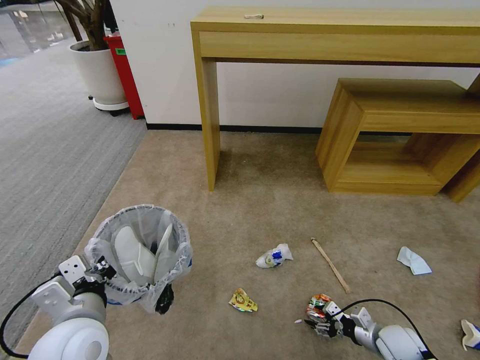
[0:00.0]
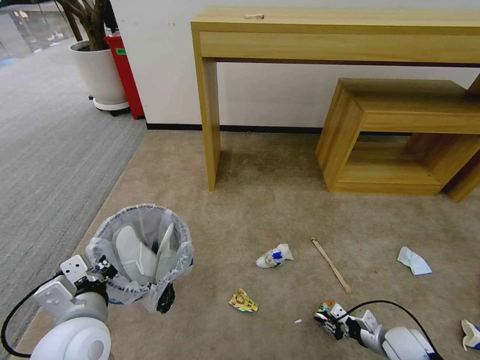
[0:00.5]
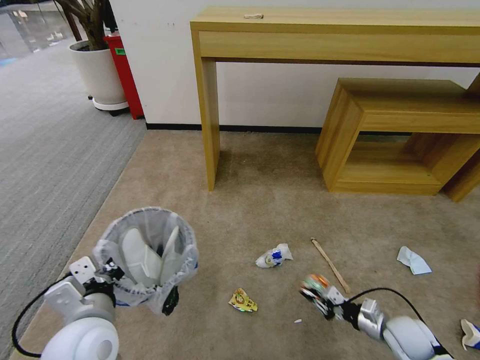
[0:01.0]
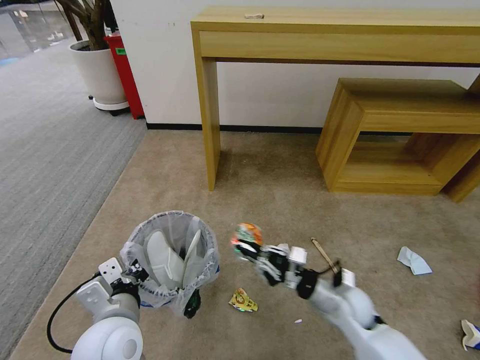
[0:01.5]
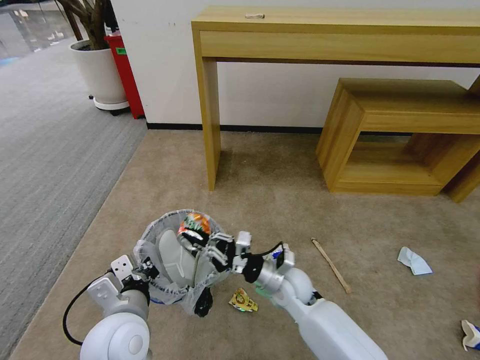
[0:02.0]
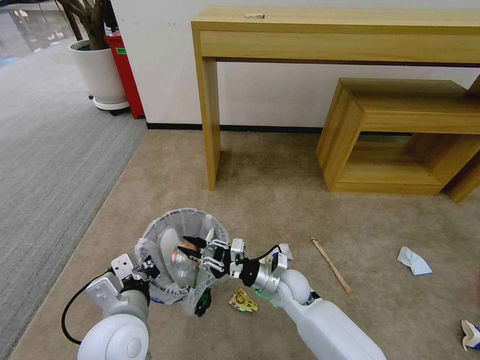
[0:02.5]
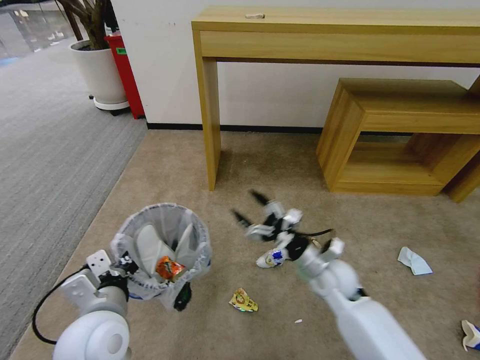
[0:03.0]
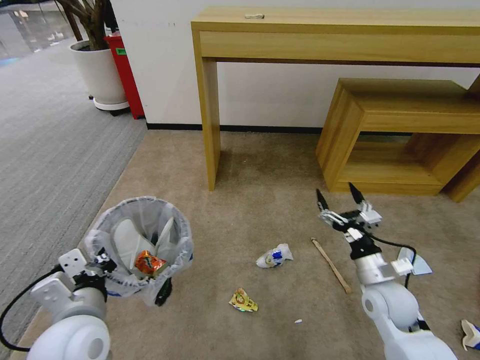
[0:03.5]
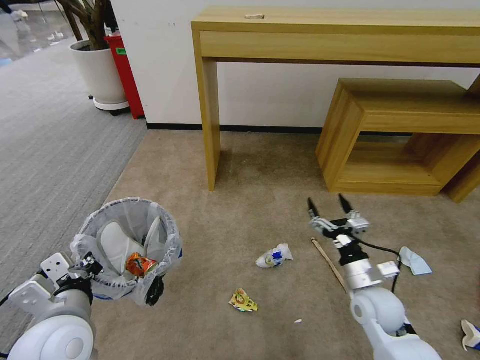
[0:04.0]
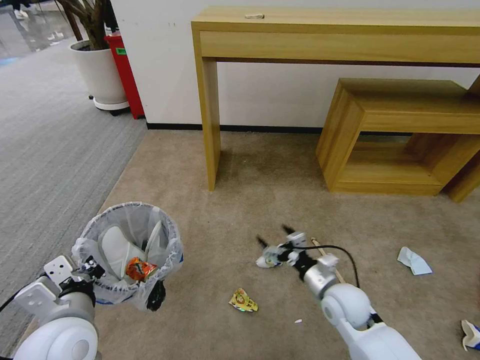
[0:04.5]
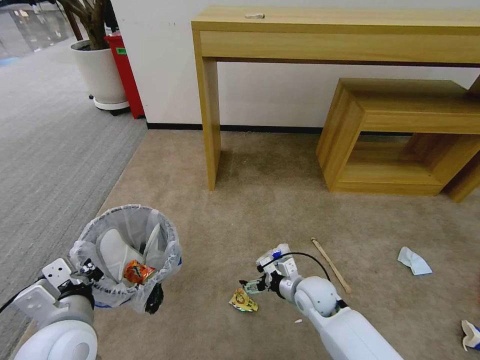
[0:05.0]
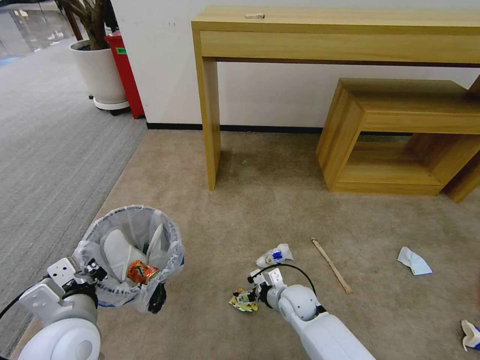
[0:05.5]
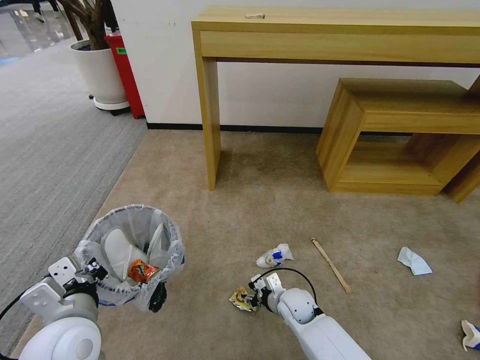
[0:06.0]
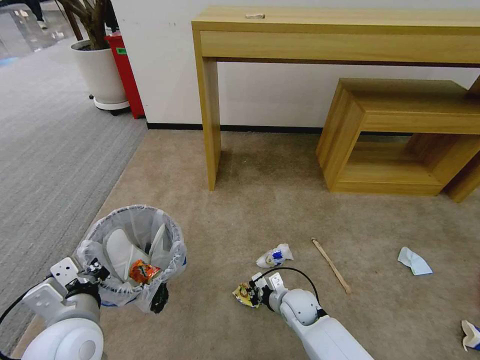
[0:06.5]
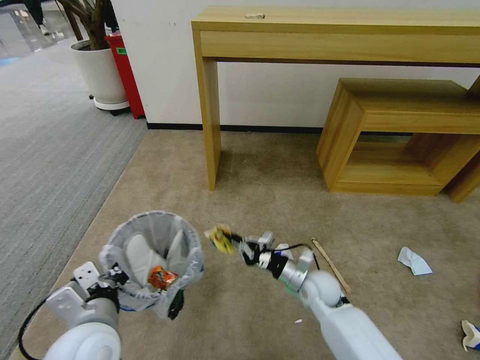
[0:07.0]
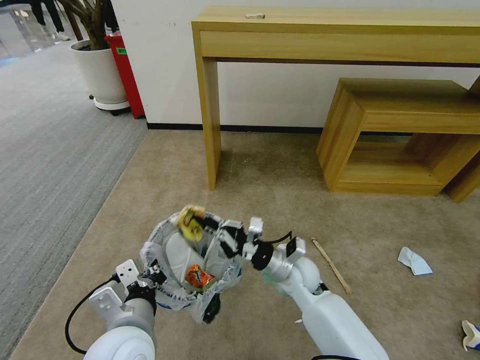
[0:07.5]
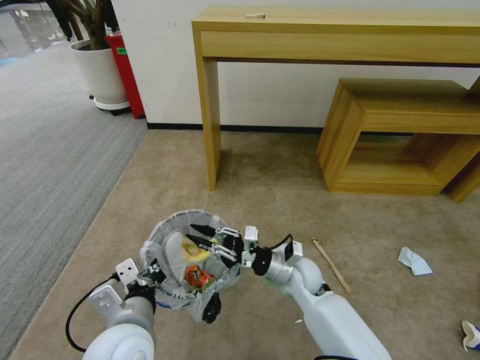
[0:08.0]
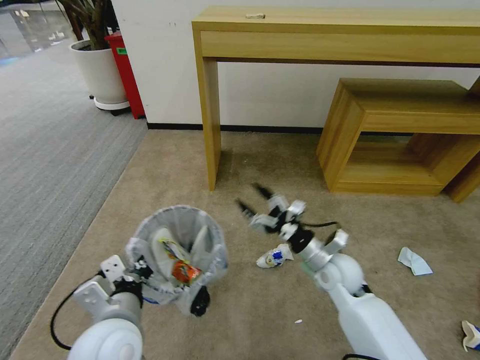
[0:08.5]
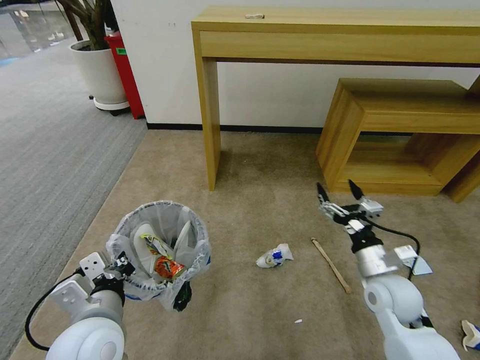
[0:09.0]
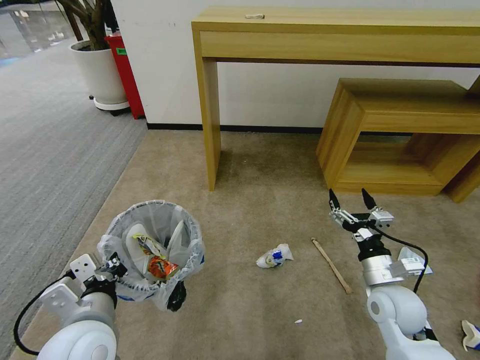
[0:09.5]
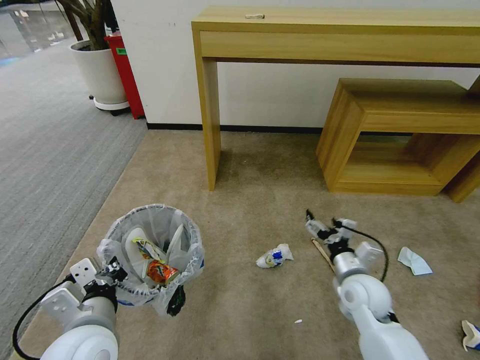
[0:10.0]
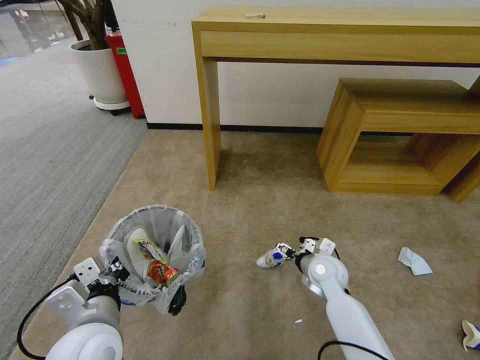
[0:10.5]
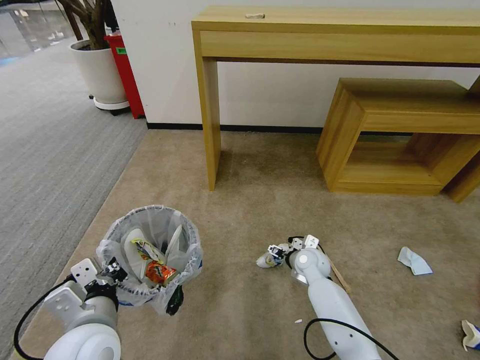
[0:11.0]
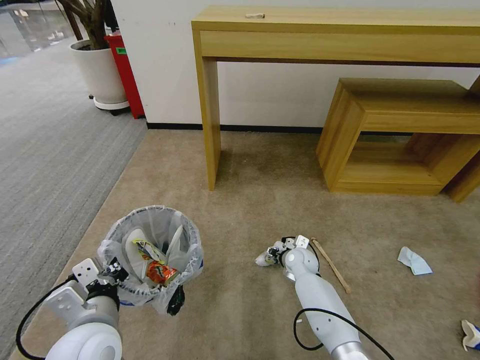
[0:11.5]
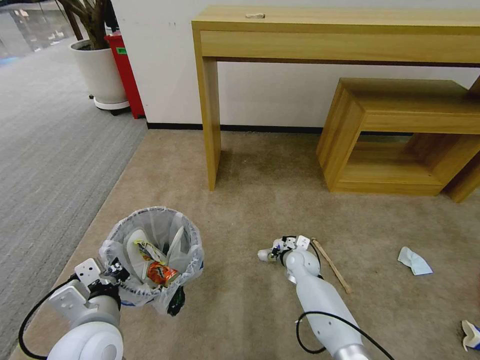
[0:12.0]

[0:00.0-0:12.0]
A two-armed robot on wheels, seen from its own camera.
Task of the whole recording: Pick up the trash bin and place the garbage on the floor into it.
0:00.0 to 0:02.0: The right gripper is displaced to the left by about 30 cm, and closes its fingers. Meanwhile the left gripper heads to the right, covering roughly 5 cm.
0:02.0 to 0:04.0: The left gripper goes about 10 cm to the left; the right gripper moves to the right, some 20 cm, and opens its fingers.
0:04.0 to 0:06.0: The right gripper is displaced to the left and downward by approximately 20 cm, and closes up.
0:06.0 to 0:08.0: The left gripper is displaced to the right by approximately 10 cm. The right gripper travels upward by about 10 cm.
0:08.0 to 0:10.0: The left gripper goes about 5 cm to the left, while the right gripper travels to the right and backward by about 15 cm, and opens up.
0:10.0 to 0:12.0: The right gripper heads forward, downward and to the left, covering some 20 cm, and closes its fingers.

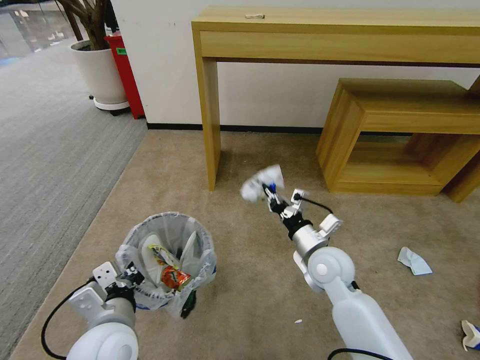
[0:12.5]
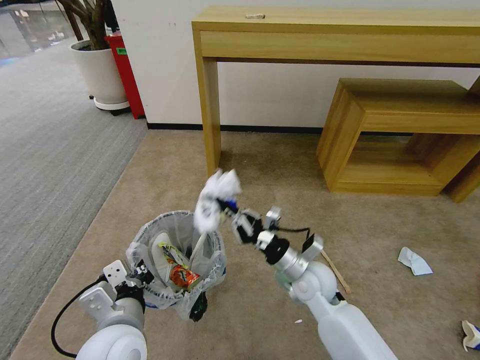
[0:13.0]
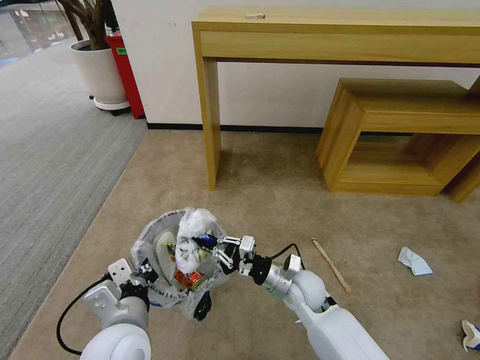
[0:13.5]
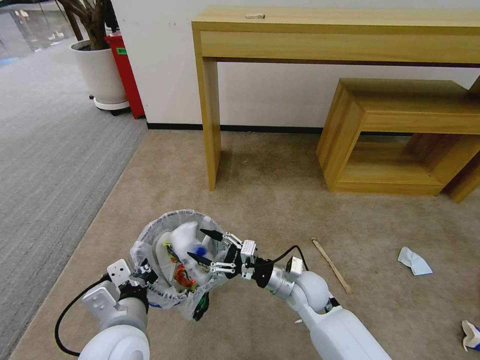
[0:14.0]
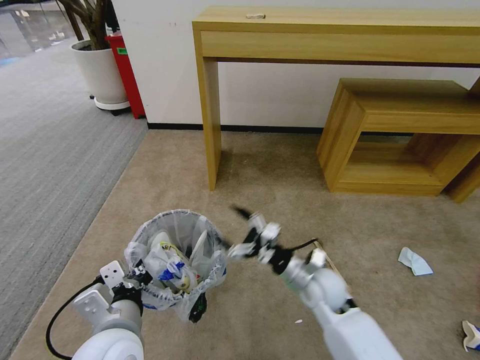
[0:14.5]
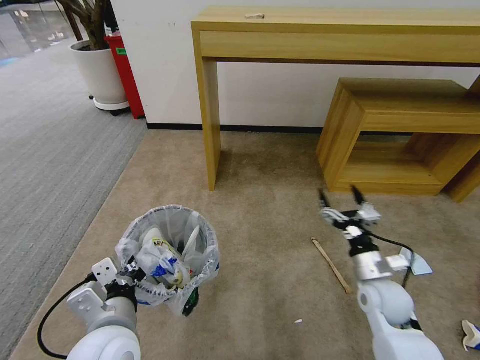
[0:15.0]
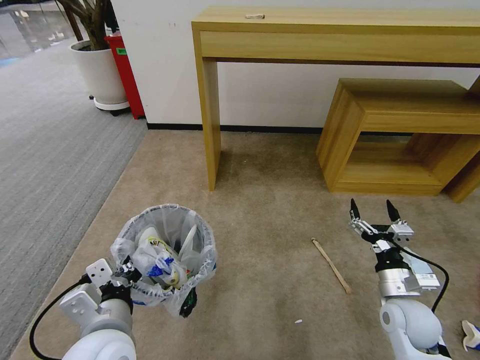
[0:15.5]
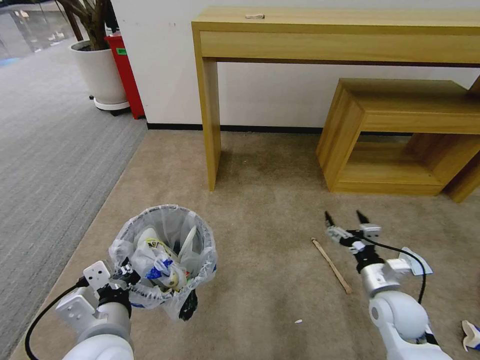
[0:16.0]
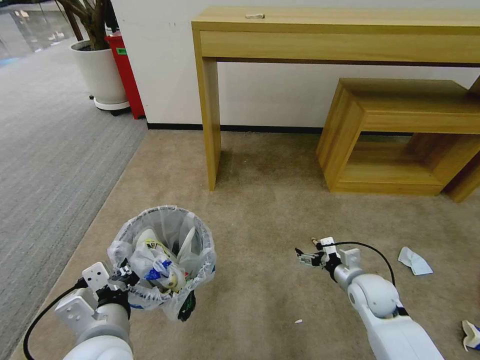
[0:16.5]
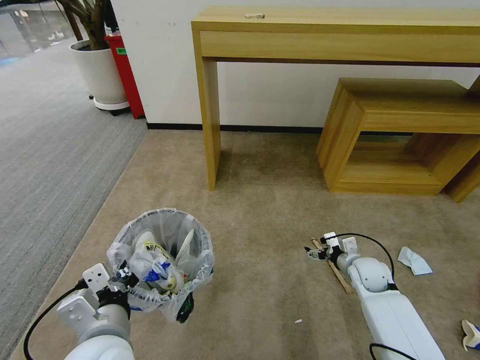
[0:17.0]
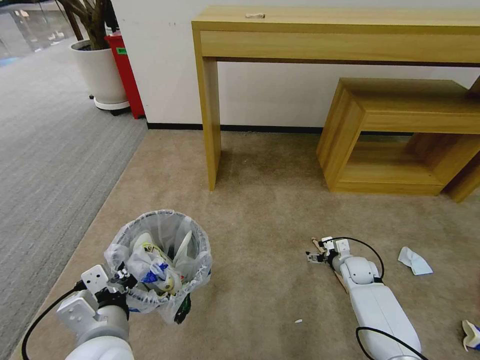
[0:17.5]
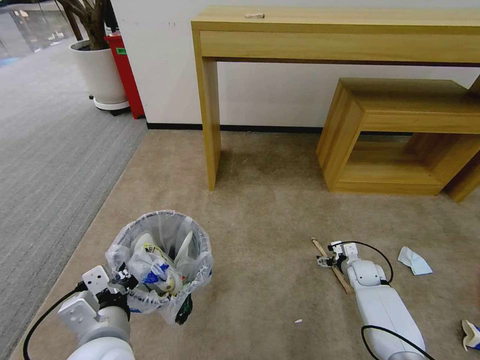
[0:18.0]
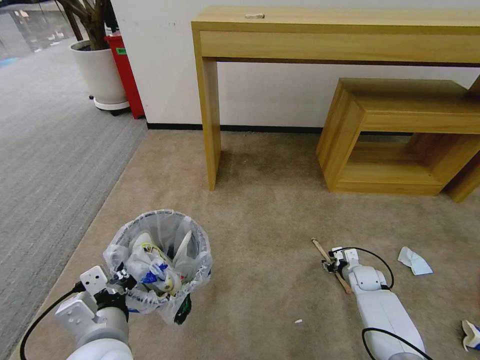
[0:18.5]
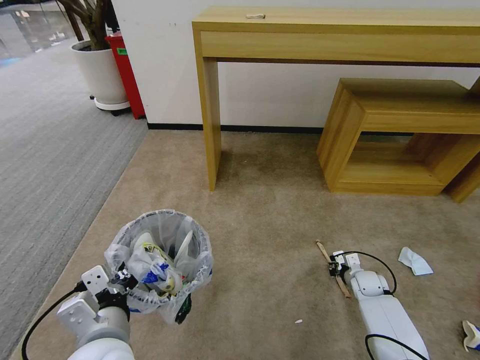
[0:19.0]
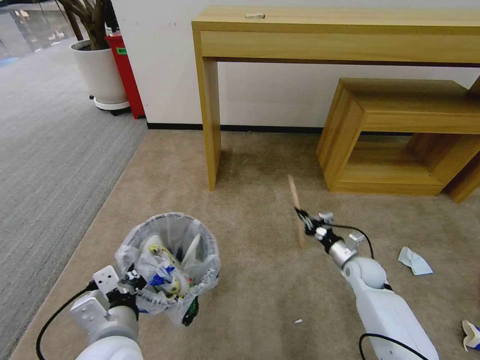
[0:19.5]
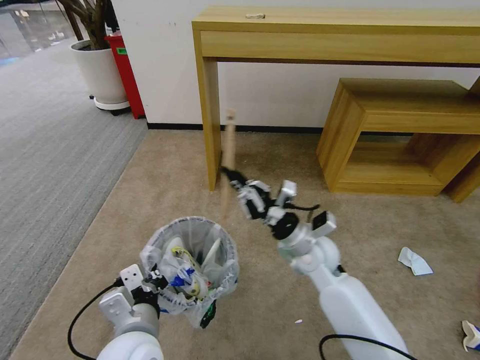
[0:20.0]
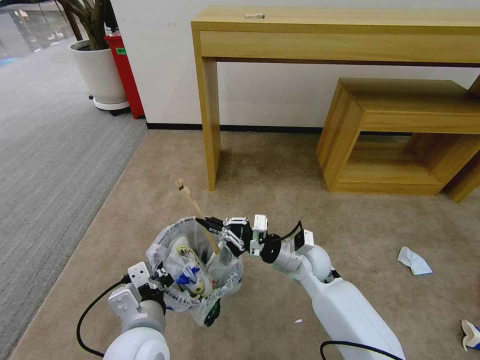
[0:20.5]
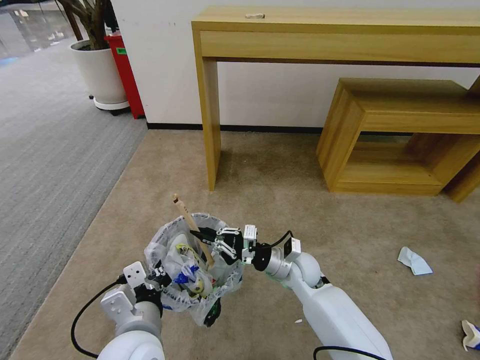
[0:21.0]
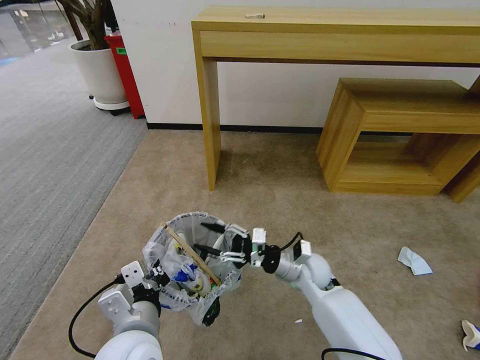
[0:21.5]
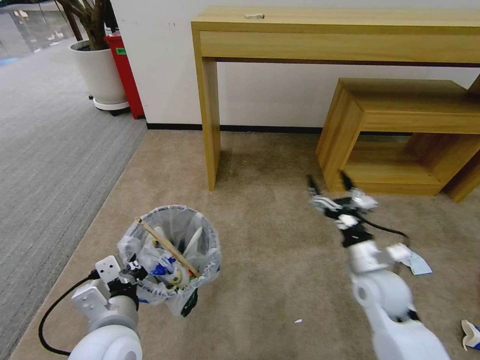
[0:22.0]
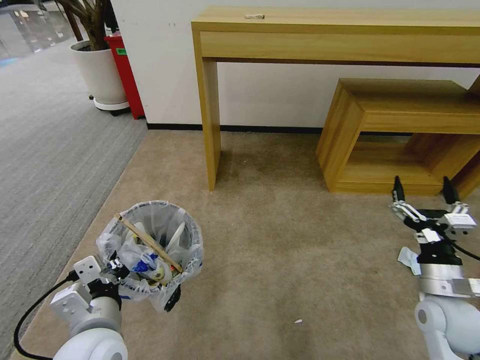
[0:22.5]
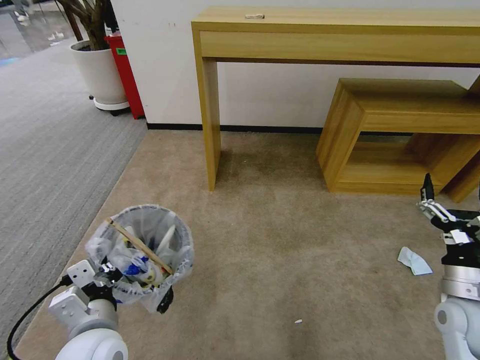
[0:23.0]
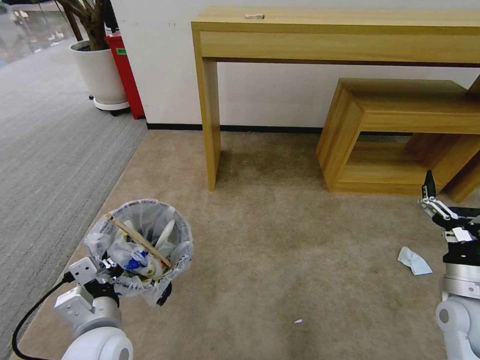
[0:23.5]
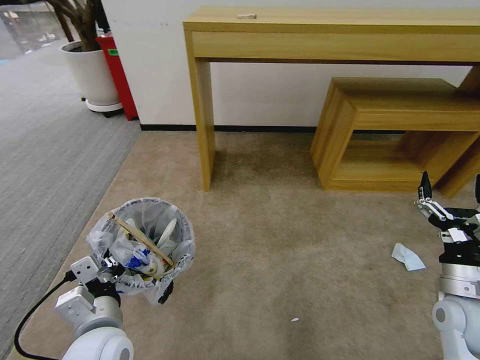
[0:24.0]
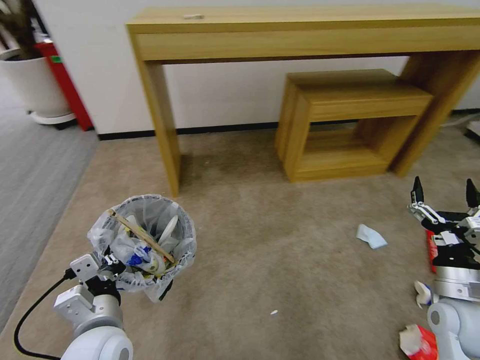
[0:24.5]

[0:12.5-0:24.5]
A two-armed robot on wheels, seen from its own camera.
Task of the whole recording: Pick up the trash bin and place the garbage on the floor into it.
0:12.5 to 0:14.5: The right gripper travels downward by some 5 cm, and opens.
0:14.5 to 0:16.5: The right gripper shifts some 15 cm to the right.
0:16.5 to 0:18.5: The right gripper moves downward, forward and to the right, roughly 20 cm, and closes up.
0:18.5 to 0:20.5: The left gripper changes place by some 5 cm. The right gripper is displaced to the left and upward by roughly 30 cm, and closes.
0:20.5 to 0:22.5: The right gripper heads to the right and backward, covering roughly 25 cm, and opens. The left gripper moves to the left, approximately 5 cm.

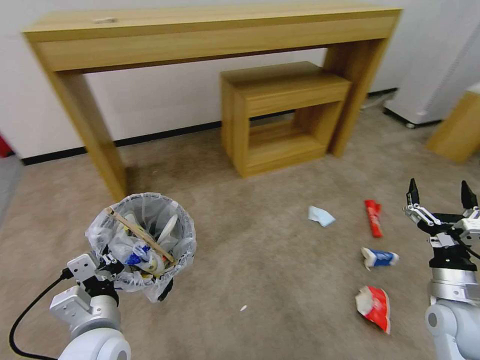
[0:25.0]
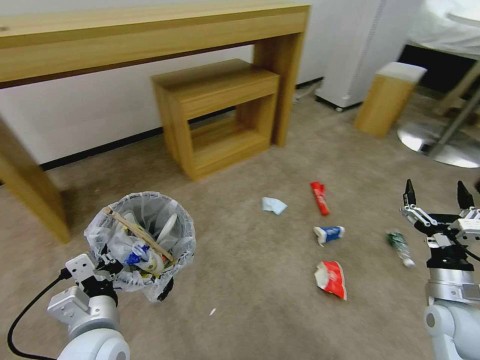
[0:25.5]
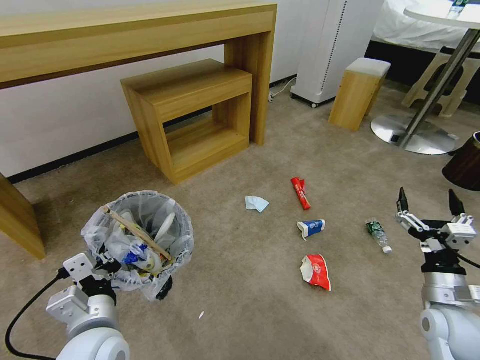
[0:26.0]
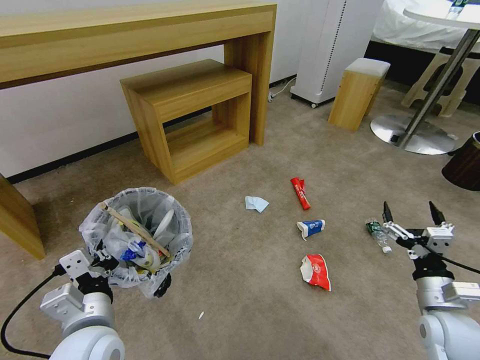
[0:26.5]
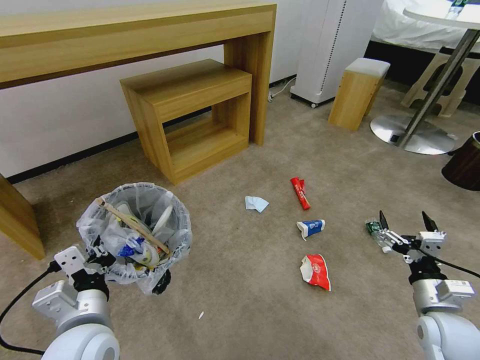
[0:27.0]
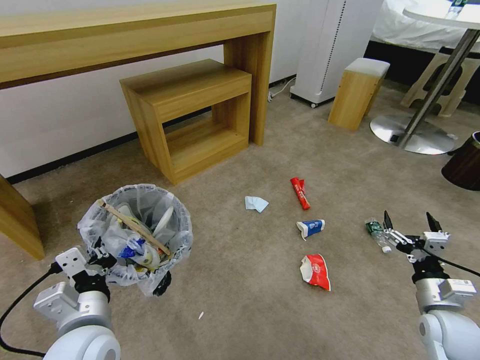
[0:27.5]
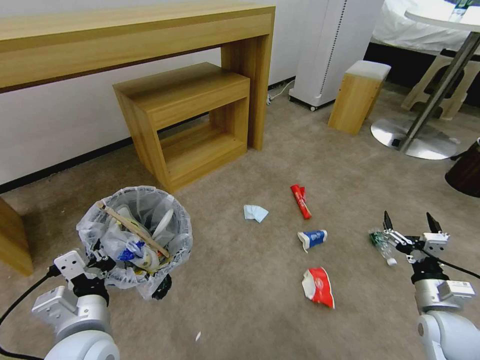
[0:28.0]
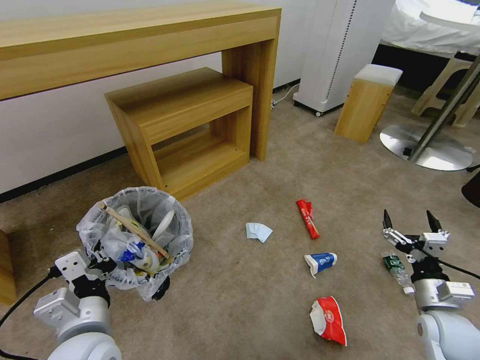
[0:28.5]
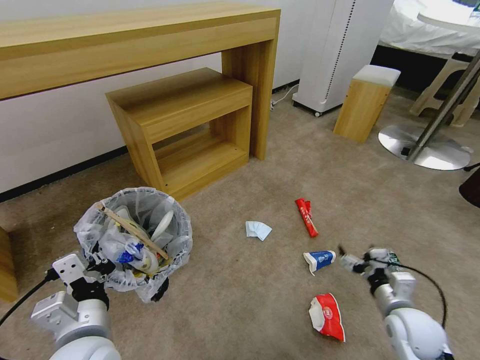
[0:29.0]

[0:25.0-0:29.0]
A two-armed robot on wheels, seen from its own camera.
Task of the whole recording: Pick up the trash bin and place the garbage on the floor into it.
0:27.0 to 0:29.0: The right gripper ends up approximately 5 cm from where it was.
